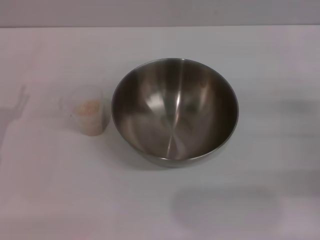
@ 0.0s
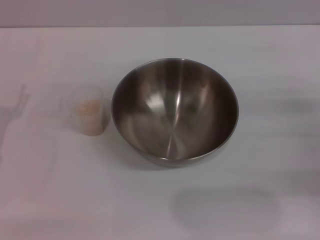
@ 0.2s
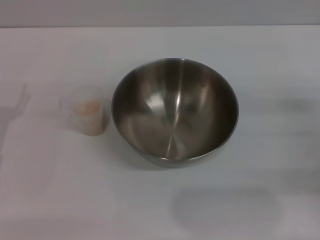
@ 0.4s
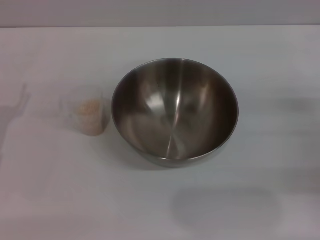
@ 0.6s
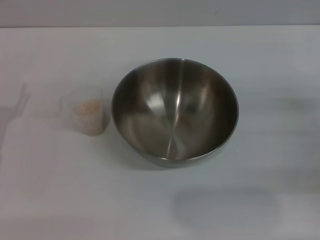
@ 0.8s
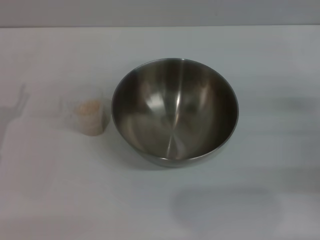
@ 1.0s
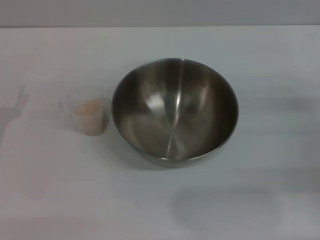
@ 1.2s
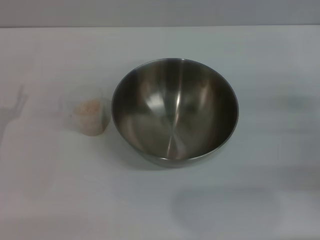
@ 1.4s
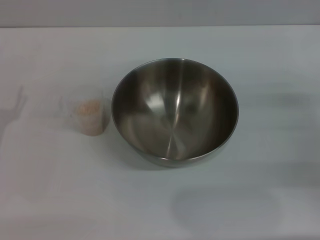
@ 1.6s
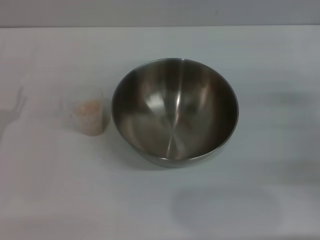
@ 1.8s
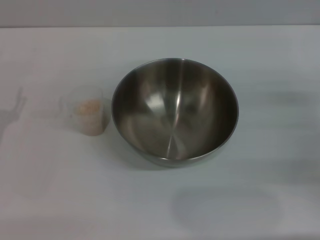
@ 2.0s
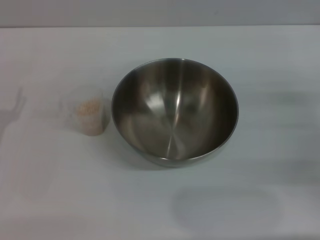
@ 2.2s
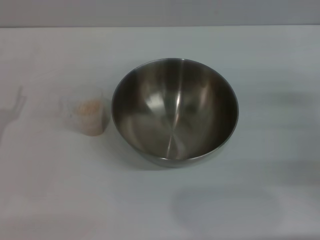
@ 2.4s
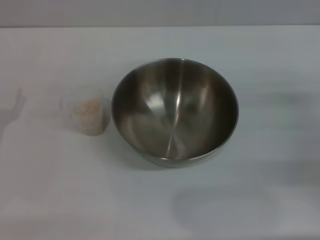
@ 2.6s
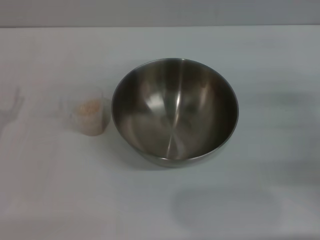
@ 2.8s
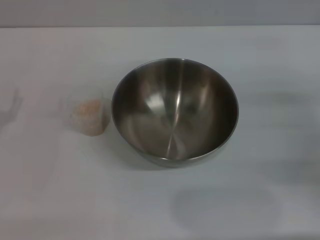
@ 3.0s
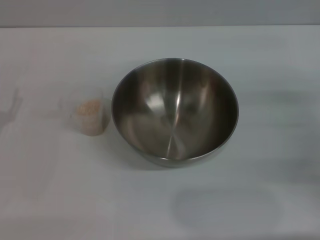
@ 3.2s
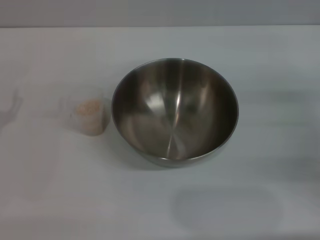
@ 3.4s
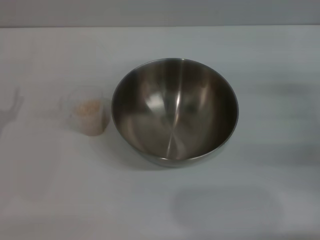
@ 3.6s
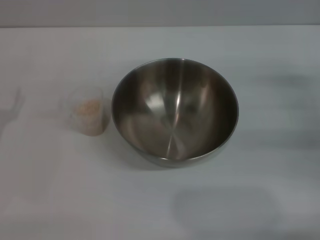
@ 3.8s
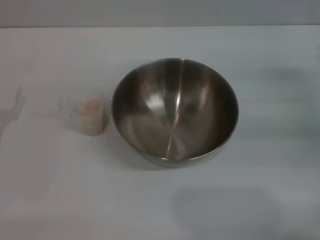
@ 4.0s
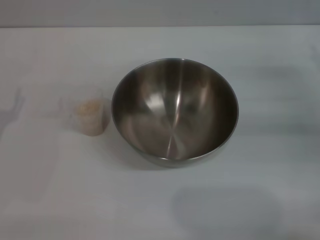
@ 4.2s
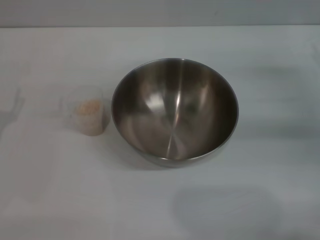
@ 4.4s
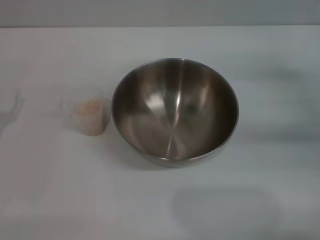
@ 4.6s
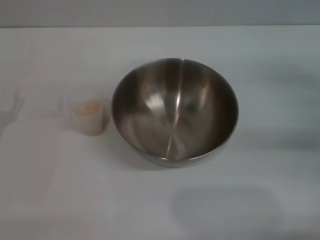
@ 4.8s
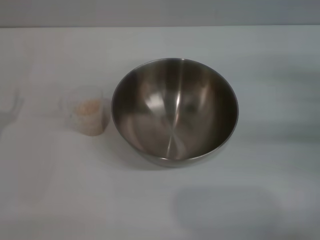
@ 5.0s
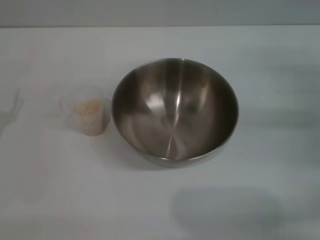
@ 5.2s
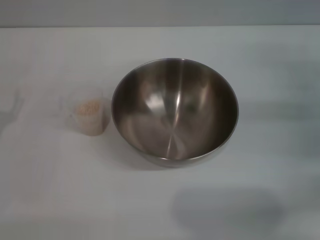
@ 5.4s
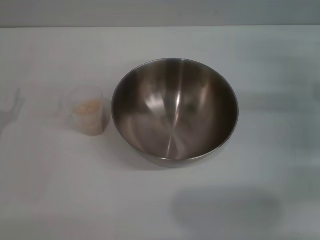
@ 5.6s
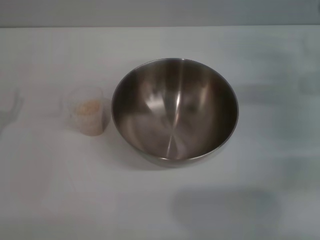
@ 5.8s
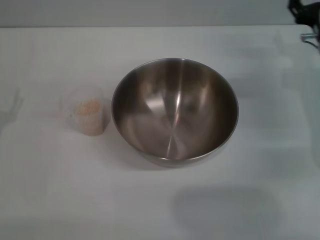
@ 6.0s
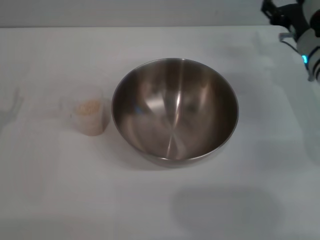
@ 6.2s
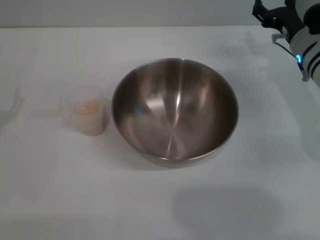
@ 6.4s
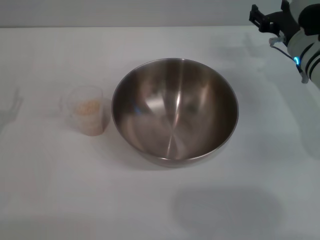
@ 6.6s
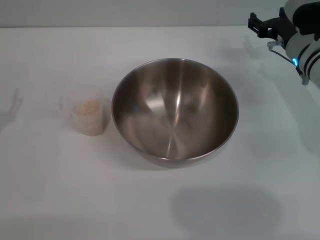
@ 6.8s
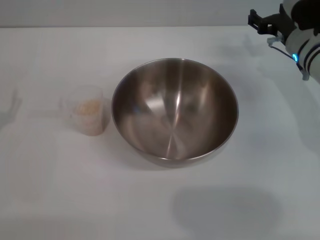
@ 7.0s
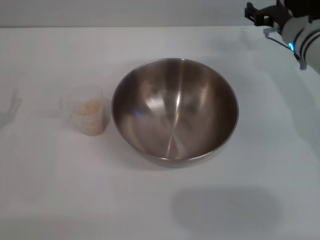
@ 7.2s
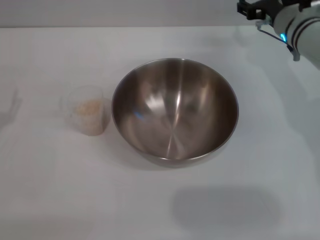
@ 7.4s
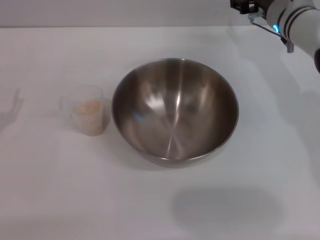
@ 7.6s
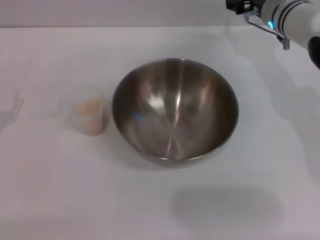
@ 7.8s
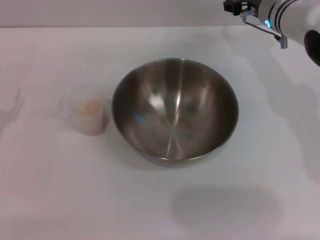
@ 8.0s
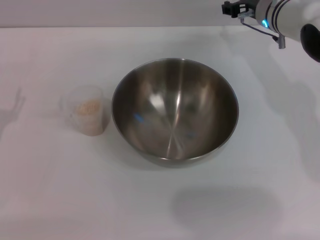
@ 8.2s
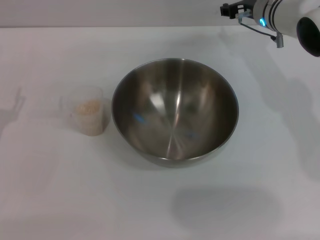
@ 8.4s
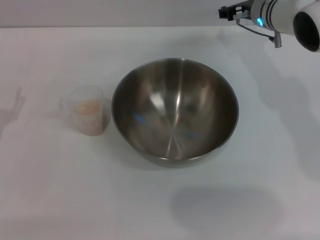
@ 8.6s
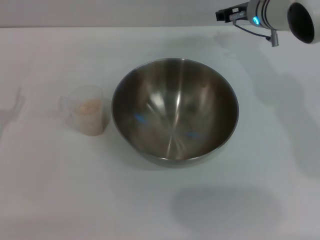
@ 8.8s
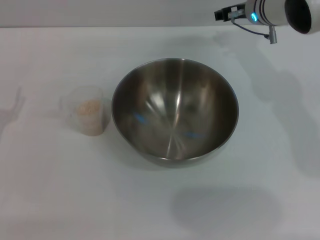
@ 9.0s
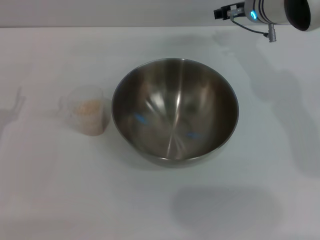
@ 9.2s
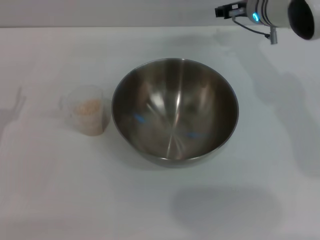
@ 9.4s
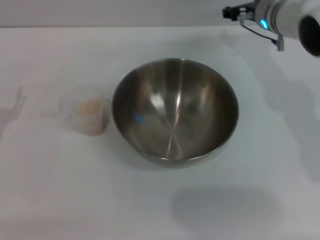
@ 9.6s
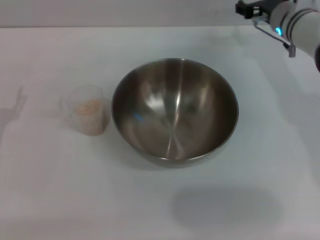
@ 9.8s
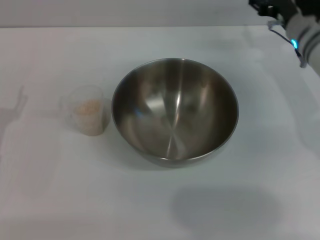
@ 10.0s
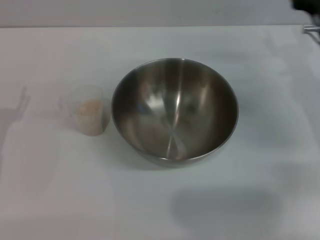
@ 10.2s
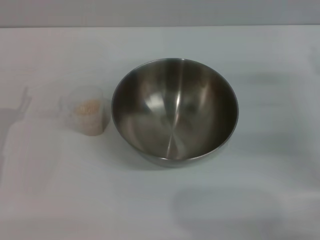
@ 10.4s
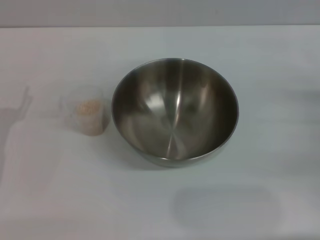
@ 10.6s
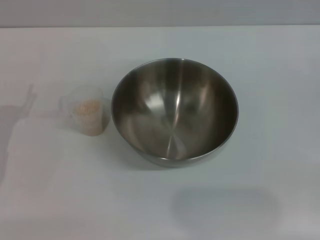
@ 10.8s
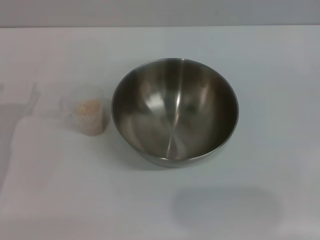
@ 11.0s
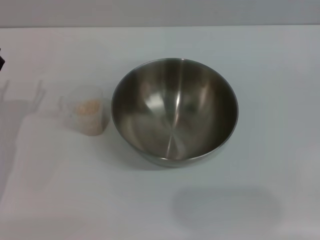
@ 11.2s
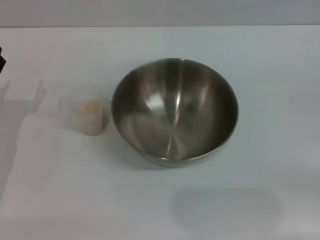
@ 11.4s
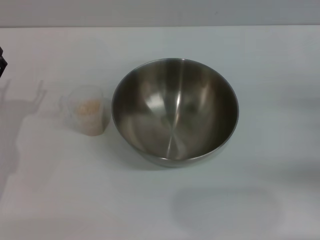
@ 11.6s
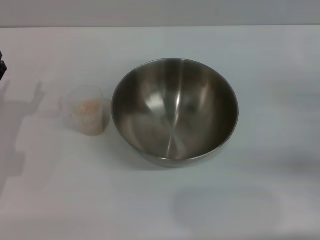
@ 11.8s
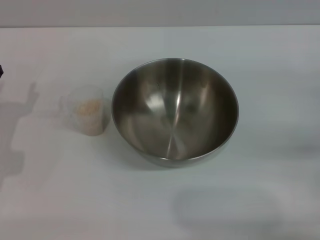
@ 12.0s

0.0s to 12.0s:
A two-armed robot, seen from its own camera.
Task of the whole recording: Place the bowl in the middle of the table with one hand and pour the rice from the grain cup into it with the other hand.
1.6s to 3.0s: Neither gripper changes place.
4.4s to 6.0s: The right gripper heads to the left and forward, covering approximately 15 cm.
6.0s to 7.6s: The right gripper is displaced to the left and forward by about 10 cm.
7.6s to 9.0s: The grippers make only small movements.
9.0s to 10.4s: The right gripper heads backward and to the right, covering approximately 25 cm.

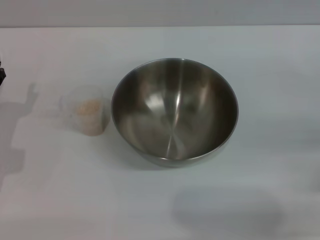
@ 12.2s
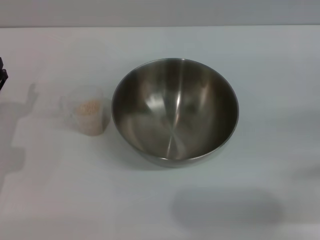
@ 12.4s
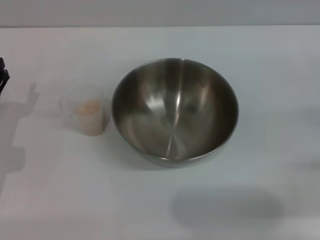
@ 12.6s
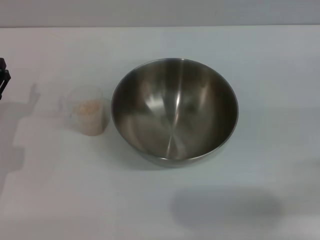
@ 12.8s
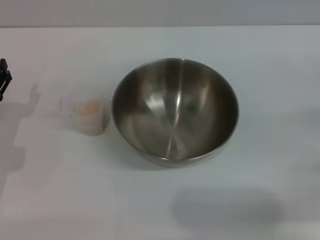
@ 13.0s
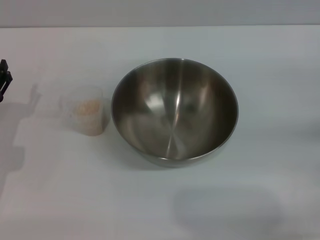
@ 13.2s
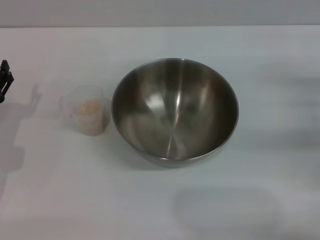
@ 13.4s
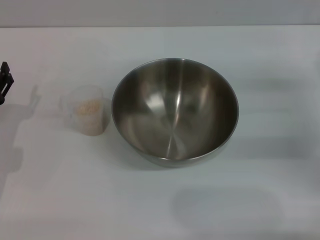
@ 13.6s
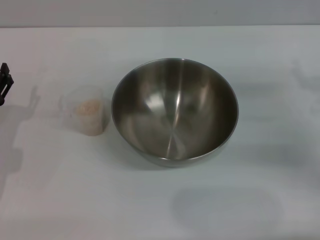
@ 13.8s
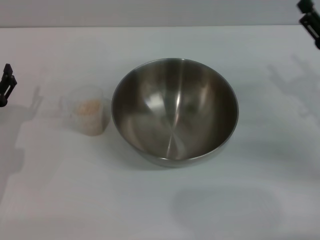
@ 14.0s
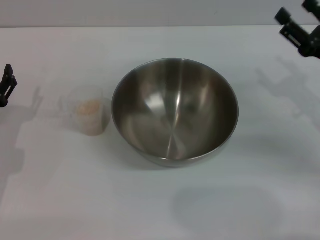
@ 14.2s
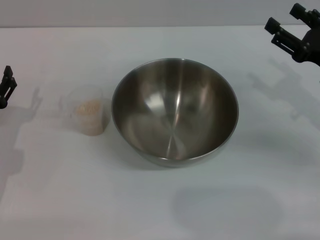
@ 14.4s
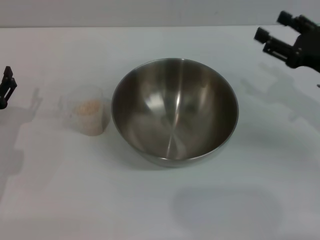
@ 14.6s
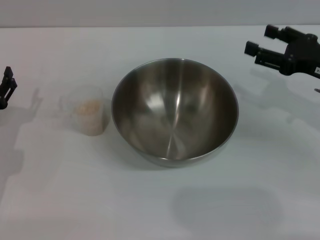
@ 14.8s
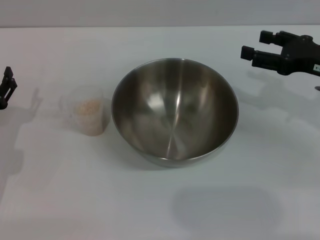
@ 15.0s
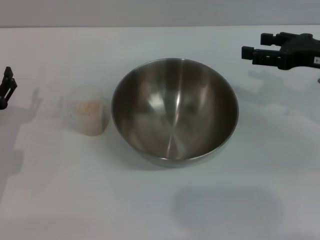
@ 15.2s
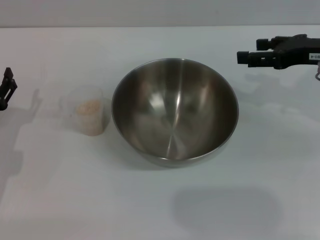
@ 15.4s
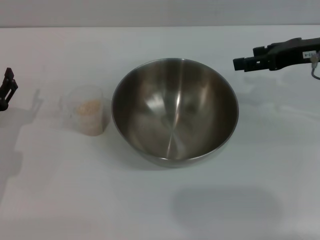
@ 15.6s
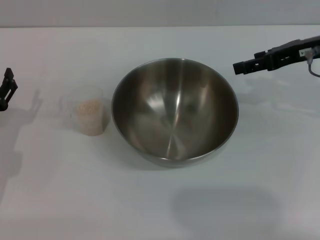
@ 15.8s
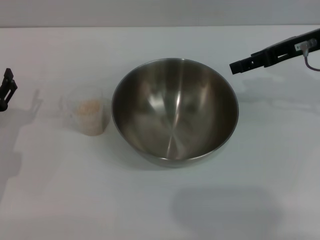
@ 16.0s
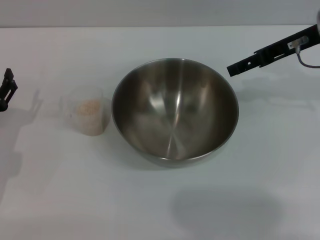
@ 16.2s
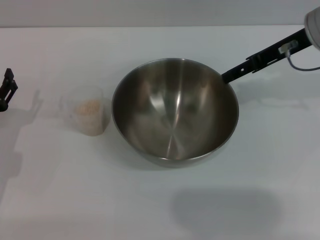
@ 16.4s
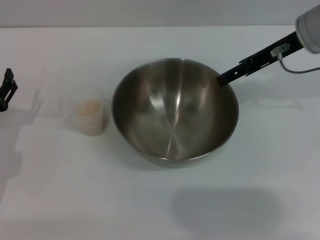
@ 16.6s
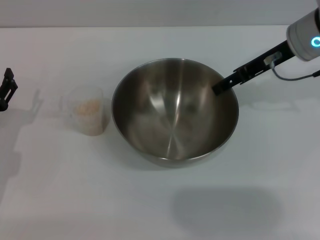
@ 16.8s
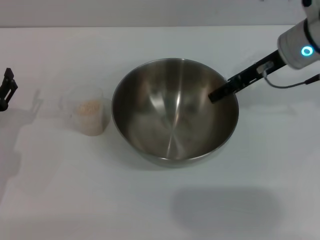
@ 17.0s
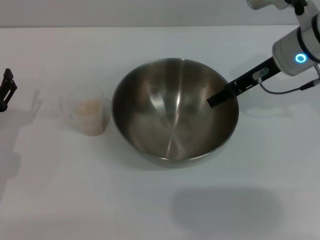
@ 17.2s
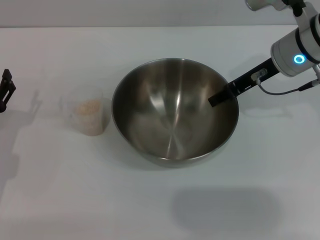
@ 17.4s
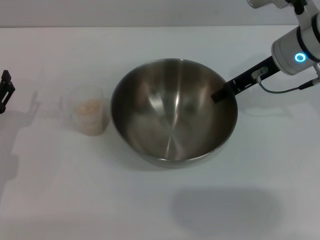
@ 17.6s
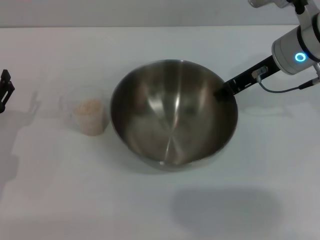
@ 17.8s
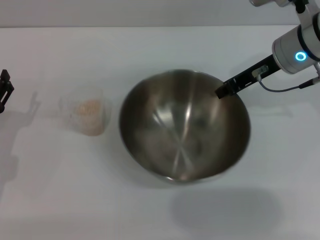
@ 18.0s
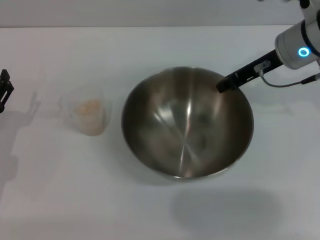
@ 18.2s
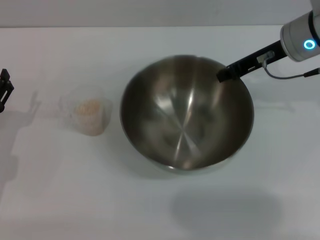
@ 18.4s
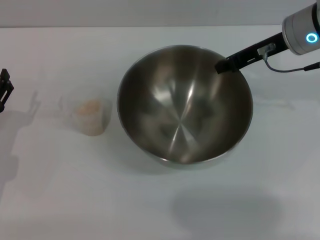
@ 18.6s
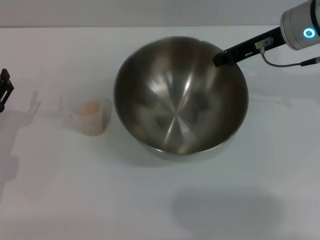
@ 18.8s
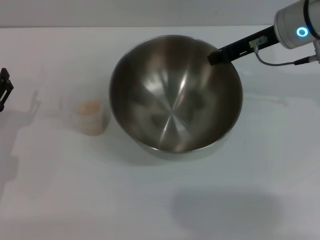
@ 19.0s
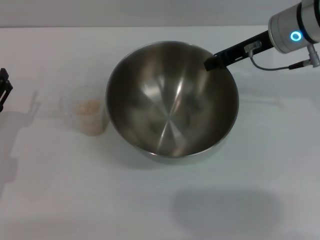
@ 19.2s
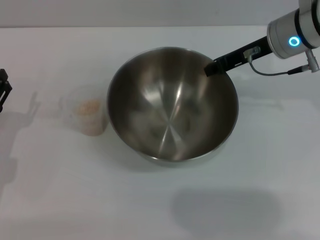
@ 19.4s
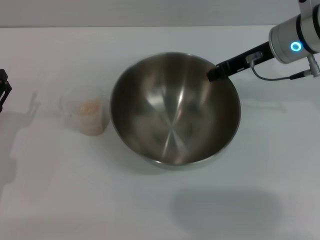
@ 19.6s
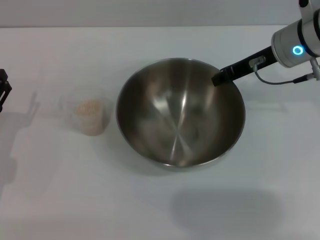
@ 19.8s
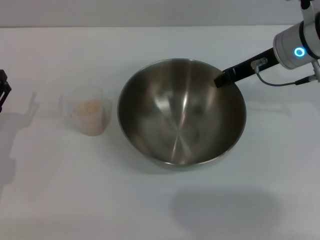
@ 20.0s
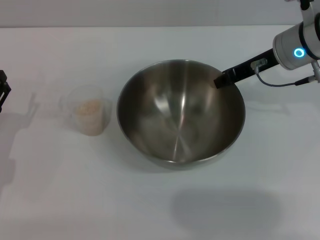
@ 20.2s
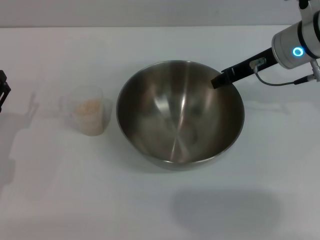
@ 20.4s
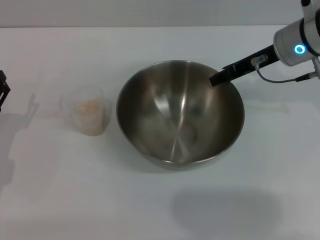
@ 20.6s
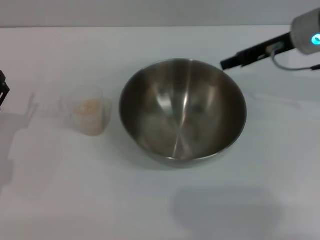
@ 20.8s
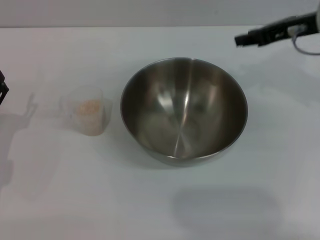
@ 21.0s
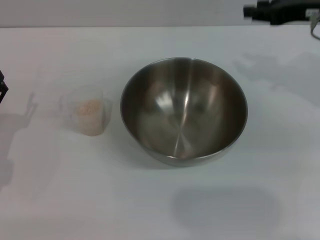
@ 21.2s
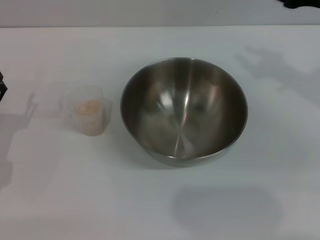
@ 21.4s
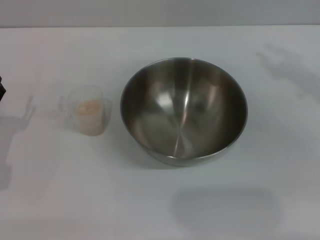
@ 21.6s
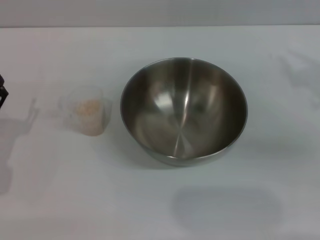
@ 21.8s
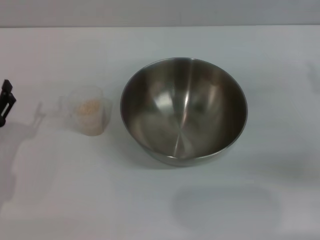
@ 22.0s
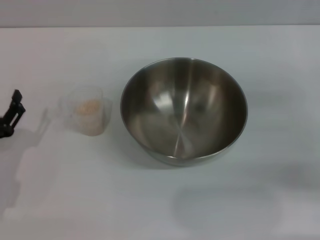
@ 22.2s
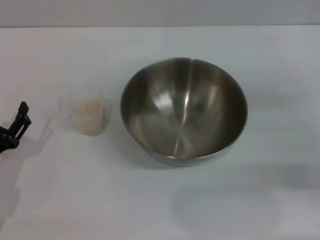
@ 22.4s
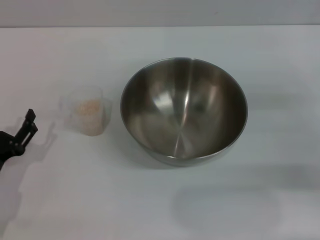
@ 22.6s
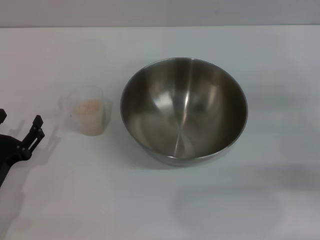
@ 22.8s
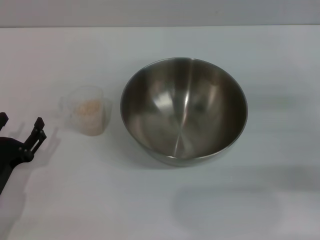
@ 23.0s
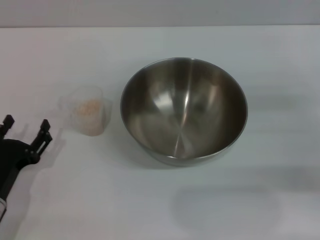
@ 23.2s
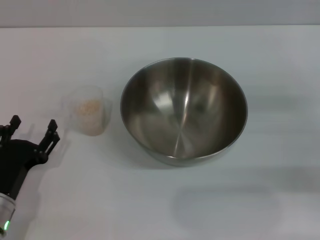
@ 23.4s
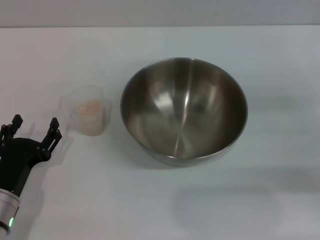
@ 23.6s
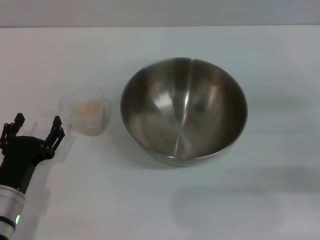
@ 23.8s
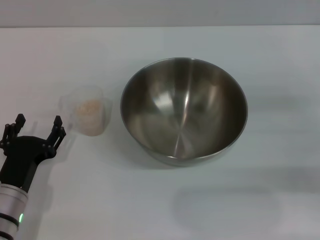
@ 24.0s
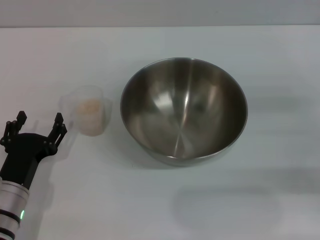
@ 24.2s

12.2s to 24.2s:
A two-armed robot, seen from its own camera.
Task of the whole recording: Place the bowl in the middle of the table with one hand and pour the rice from the grain cup into it with the other hand.
Step, 12.2s to 18.6s: Pick up the bowl with the right gripper.
Step, 18.8s to 20.8s: Place the bowl in the center of view with the right gripper.
12.2s to 13.8s: The right gripper is displaced to the left by roughly 5 cm.
13.8s to 15.2s: The right gripper goes some 10 cm upward.
15.2s to 16.6s: The right gripper goes about 10 cm to the left and forward.
16.6s to 18.2s: The right gripper closes its fingers.
18.2s to 19.8s: The grippers move only a little.
19.8s to 21.2s: The right gripper shifts some 10 cm to the right and upward, and opens its fingers.
21.2s to 22.6s: The right gripper goes about 20 cm downward, backward and to the right, while the left gripper goes about 5 cm backward.
22.6s to 24.2s: The left gripper is displaced to the right by roughly 5 cm.
